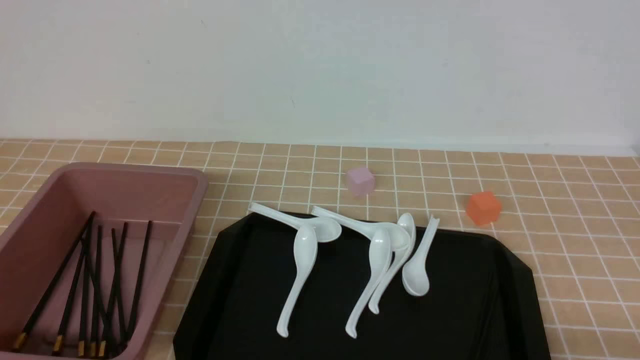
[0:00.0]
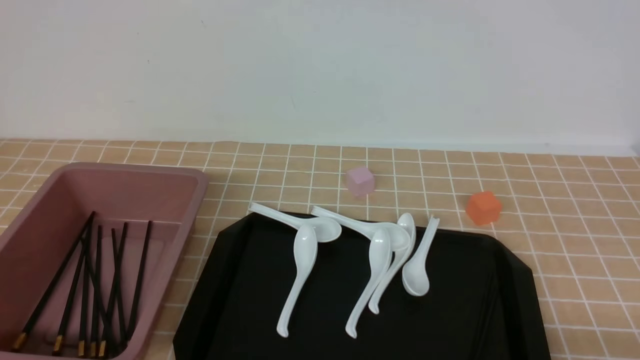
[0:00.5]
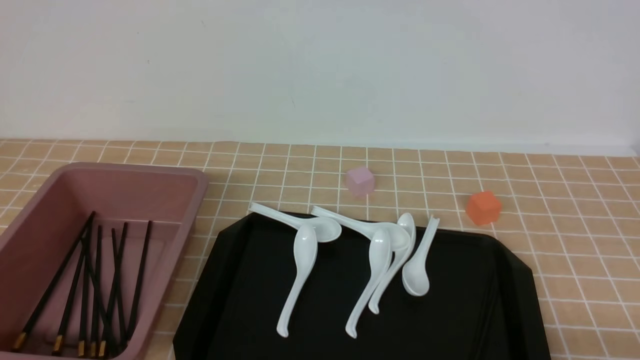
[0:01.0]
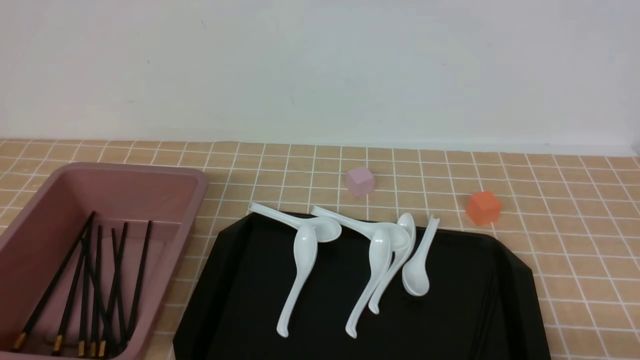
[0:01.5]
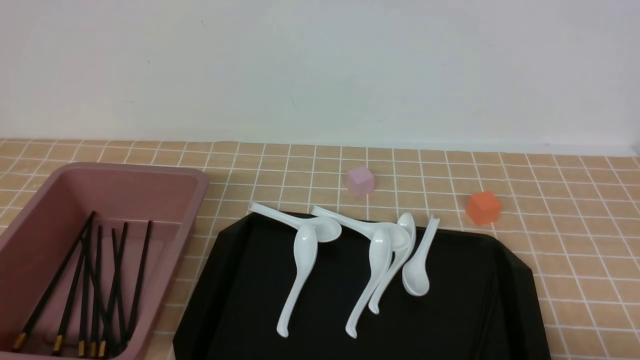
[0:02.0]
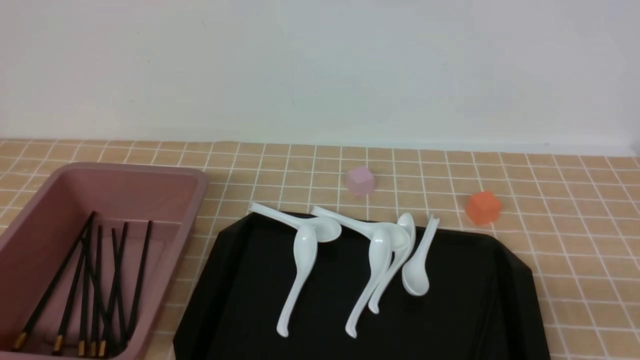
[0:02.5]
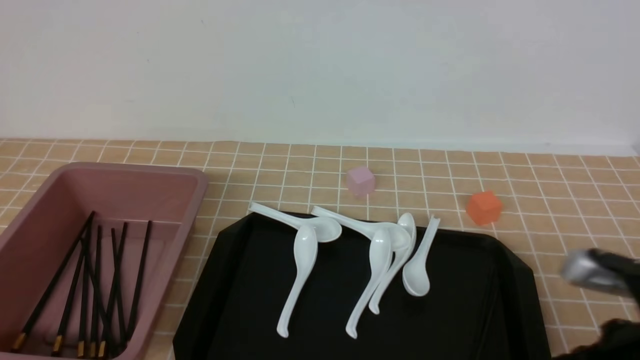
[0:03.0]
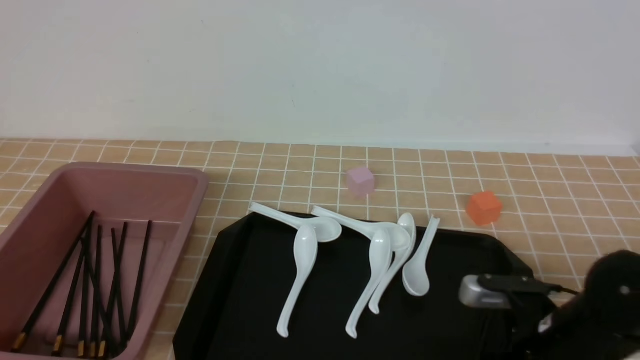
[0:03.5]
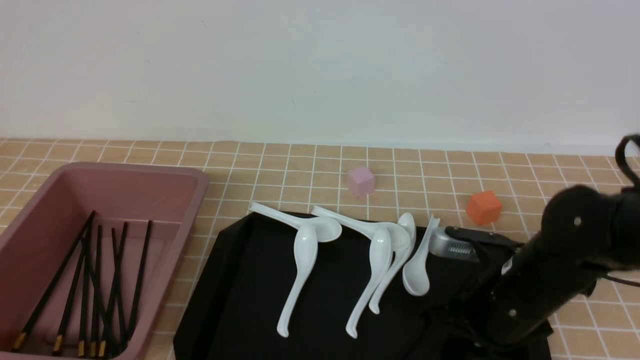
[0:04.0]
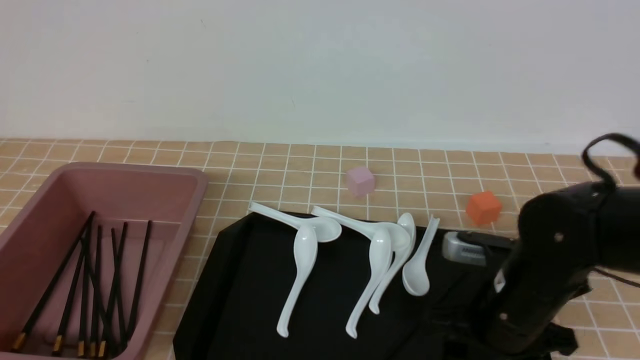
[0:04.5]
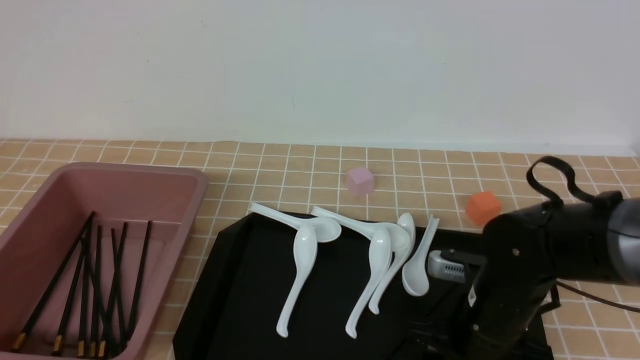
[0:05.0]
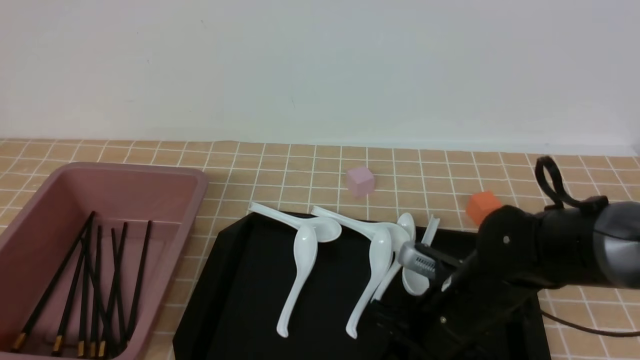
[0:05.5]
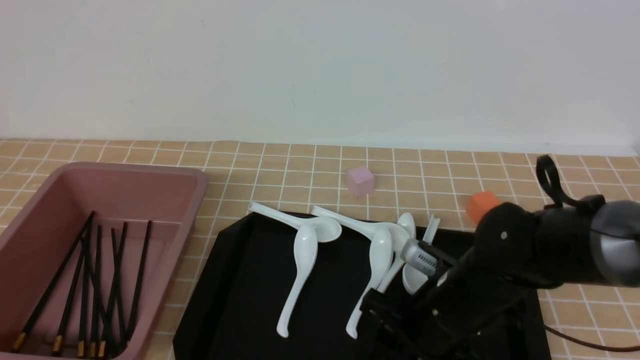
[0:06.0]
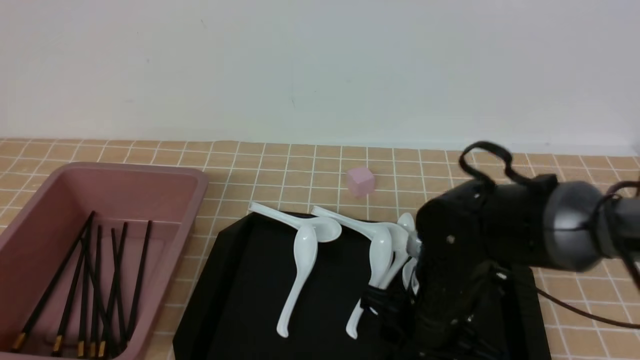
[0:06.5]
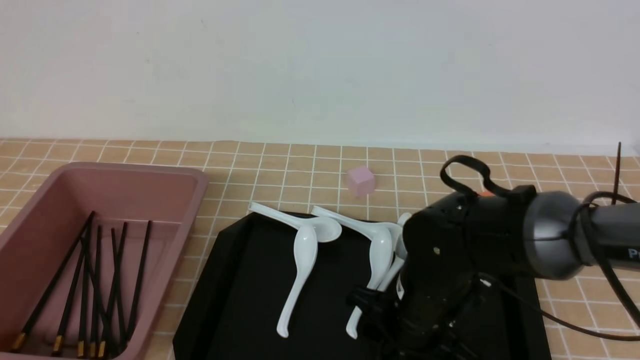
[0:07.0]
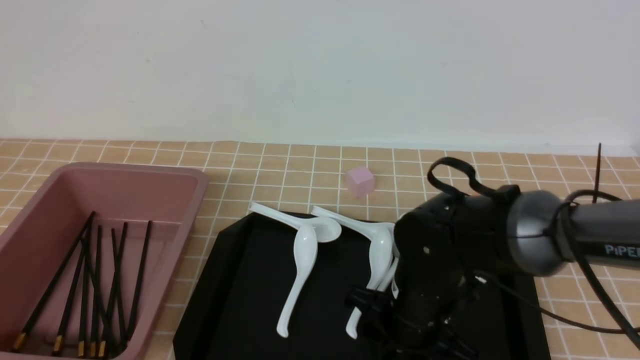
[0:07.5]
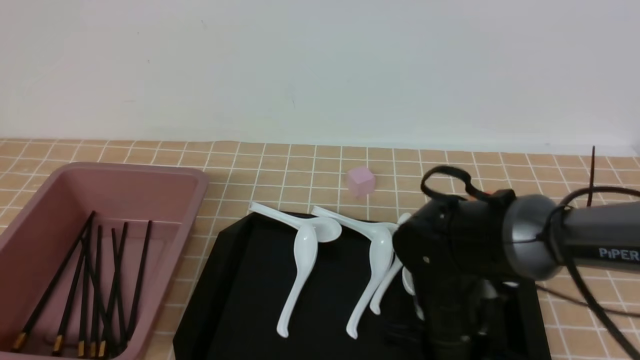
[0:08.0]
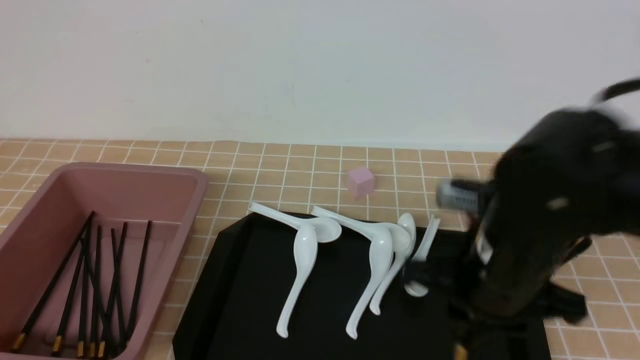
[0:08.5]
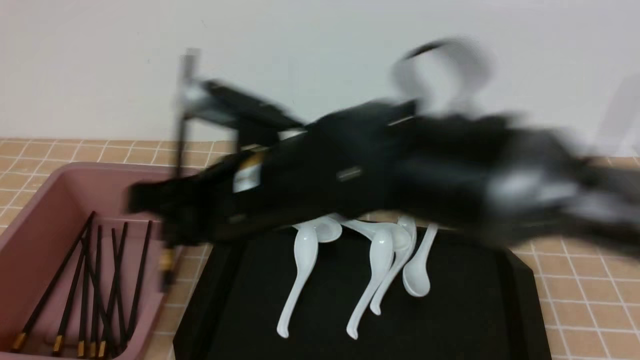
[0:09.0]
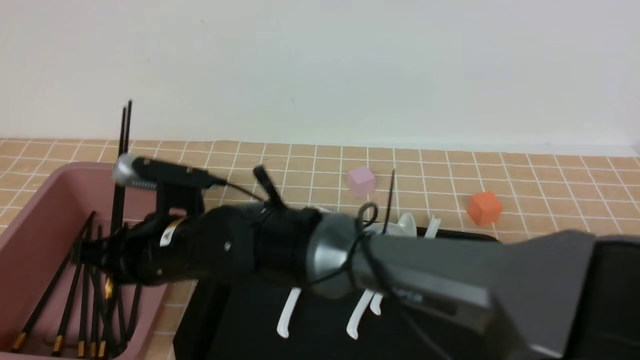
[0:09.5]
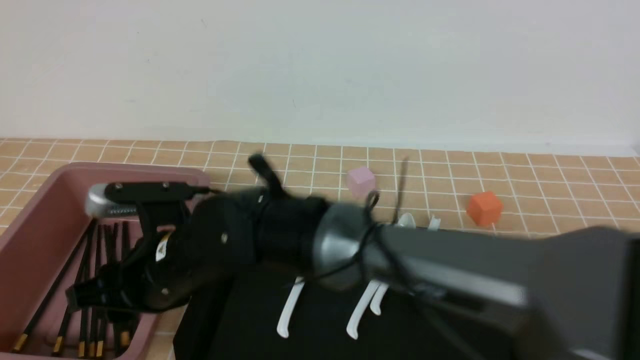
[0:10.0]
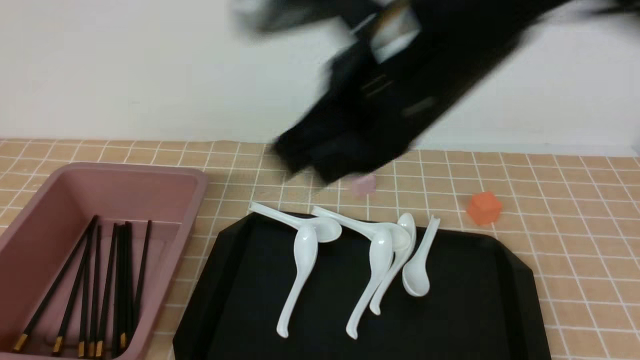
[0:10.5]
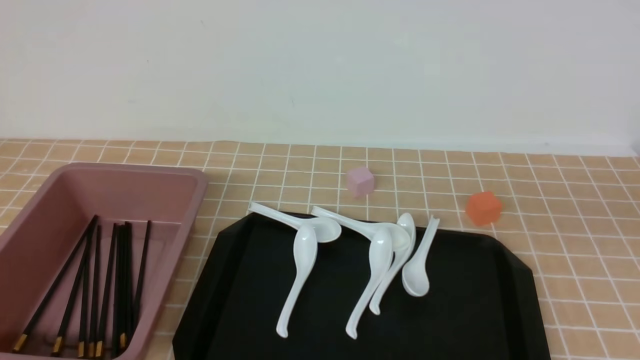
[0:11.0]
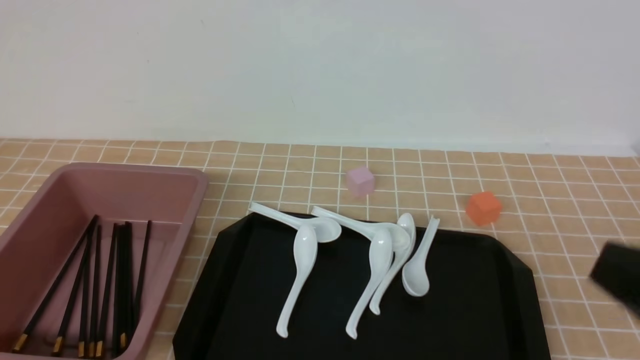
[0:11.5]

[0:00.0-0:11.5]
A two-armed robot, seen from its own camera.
Step, 0:00.0 to 0:08.5: use the right arm to grab a pair of chopsticks.
Step, 0:09.0 to 0:10.0: use the right arm to put the chopsticks into the lunch box.
0:02.0 to 0:04.0: The right gripper is displaced forward and to the left by roughly 25 cm.
0:04.0 to 0:06.0: The right gripper shifts roughly 5 cm to the left, and opens.
0:07.5 to 0:09.5: The right gripper goes some 20 cm to the left.
0:09.5 to 0:11.5: The right gripper is displaced to the right and backward by roughly 40 cm.

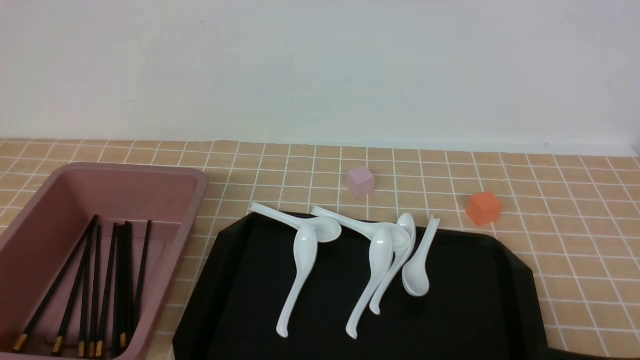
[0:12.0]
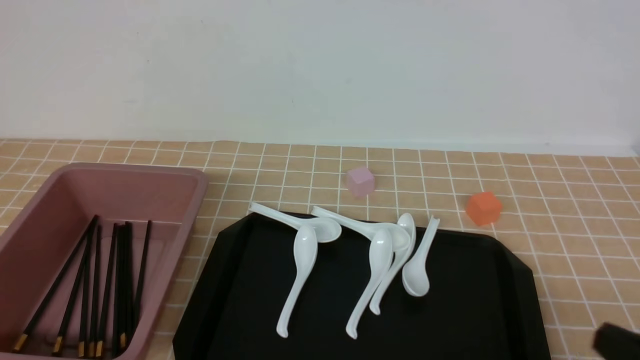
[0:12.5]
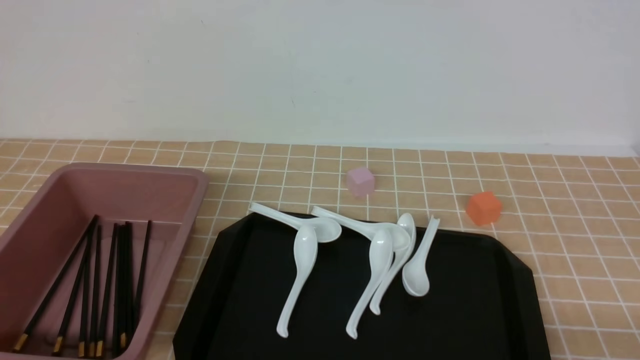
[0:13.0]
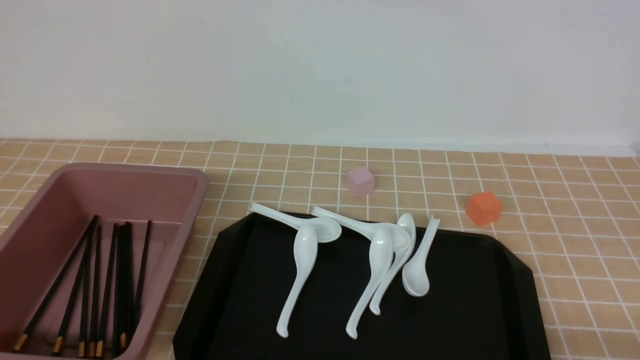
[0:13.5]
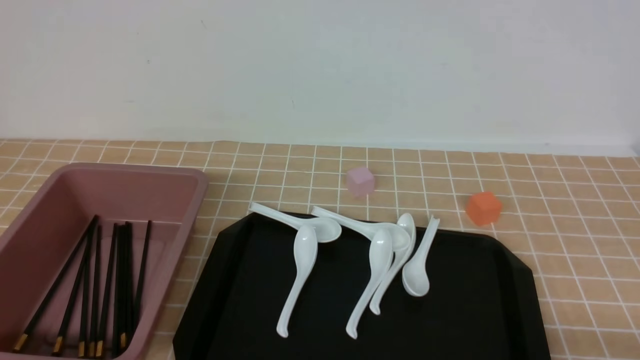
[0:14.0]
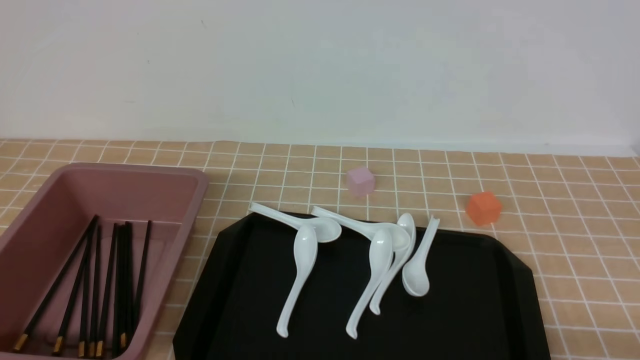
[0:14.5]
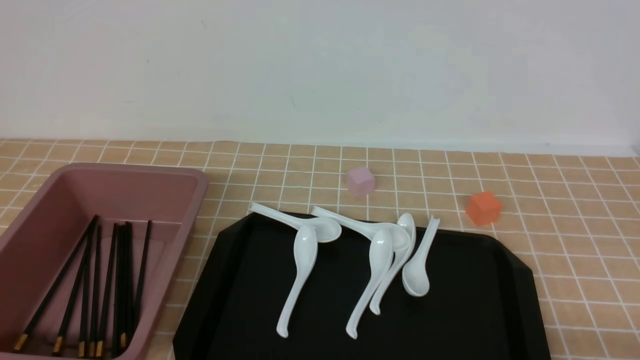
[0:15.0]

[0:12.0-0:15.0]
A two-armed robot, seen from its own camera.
0:13.5 to 0:15.0: Both grippers stay put.
